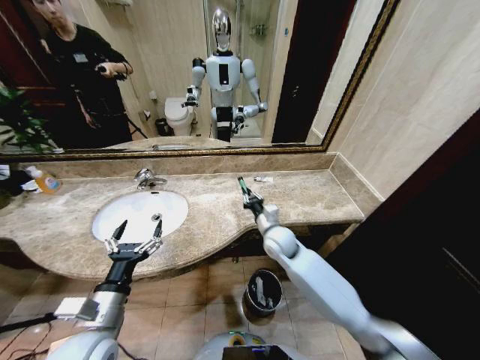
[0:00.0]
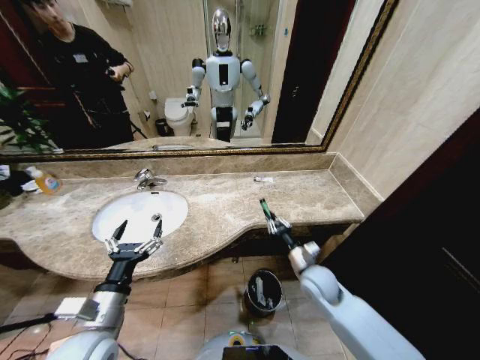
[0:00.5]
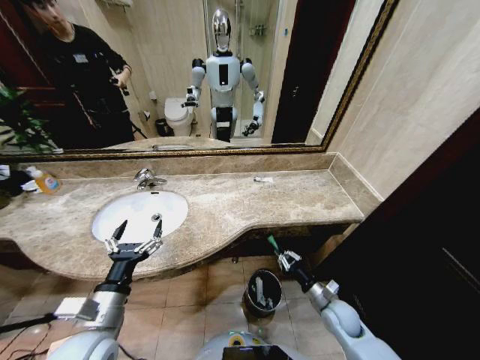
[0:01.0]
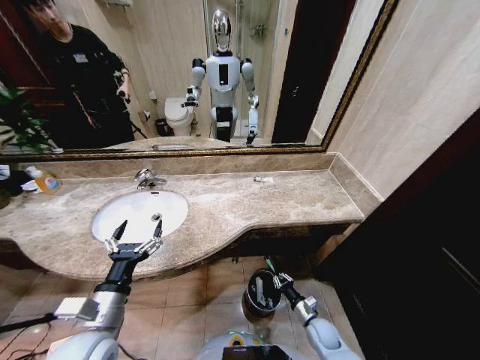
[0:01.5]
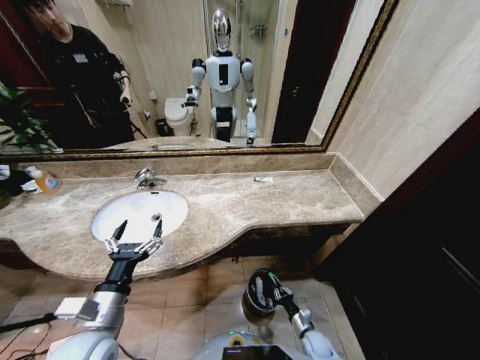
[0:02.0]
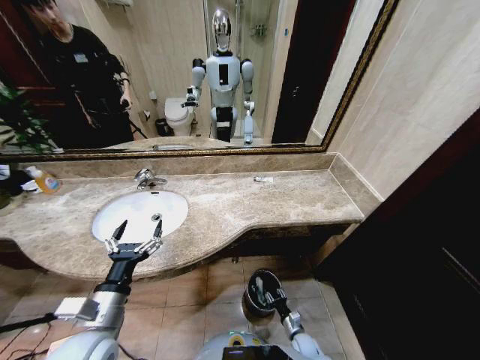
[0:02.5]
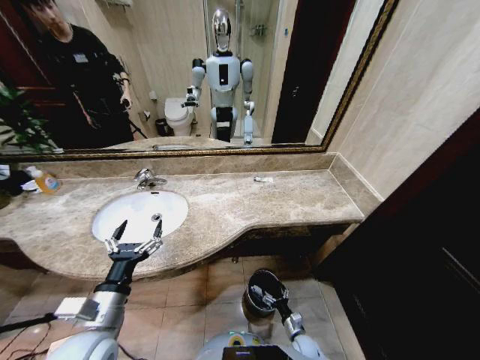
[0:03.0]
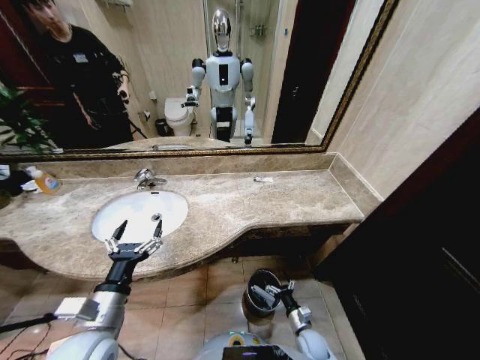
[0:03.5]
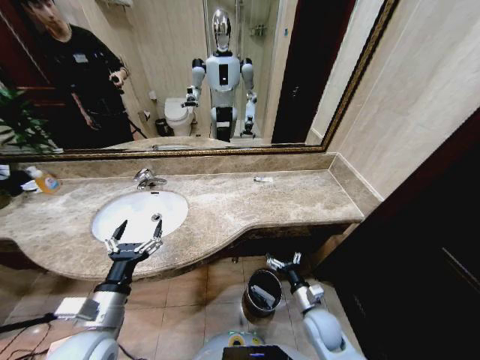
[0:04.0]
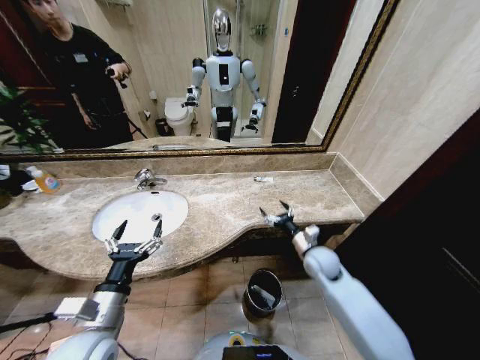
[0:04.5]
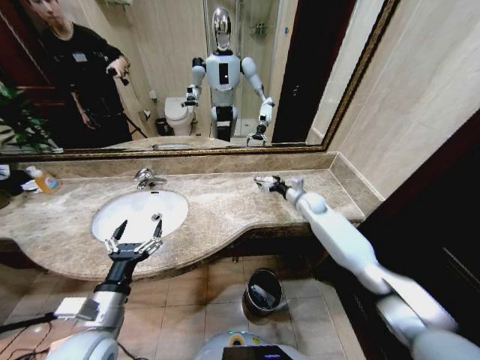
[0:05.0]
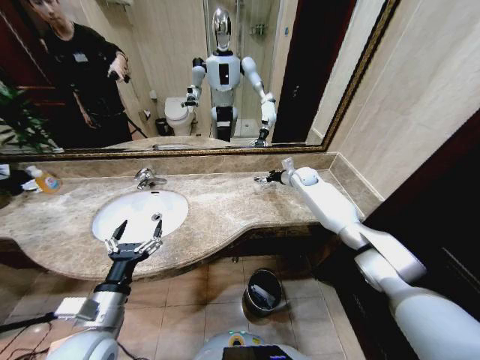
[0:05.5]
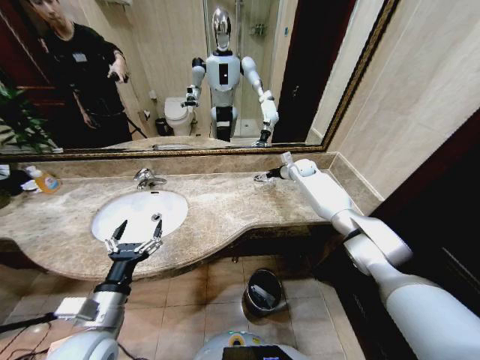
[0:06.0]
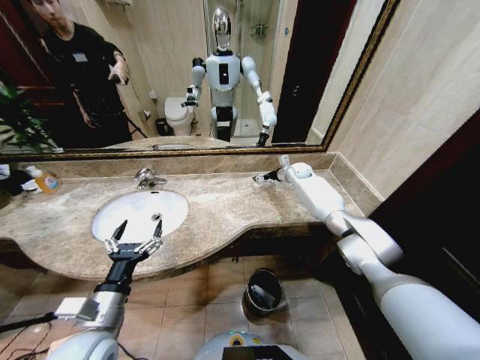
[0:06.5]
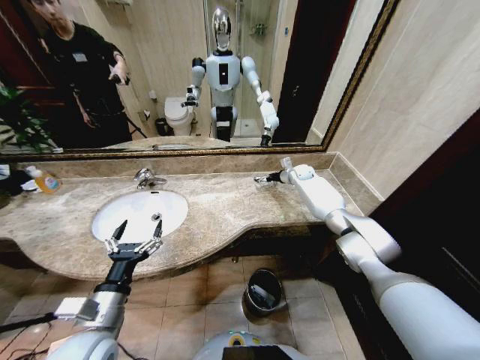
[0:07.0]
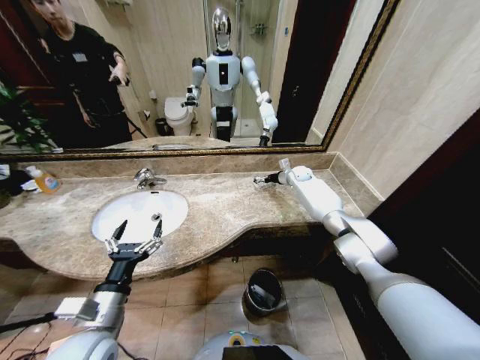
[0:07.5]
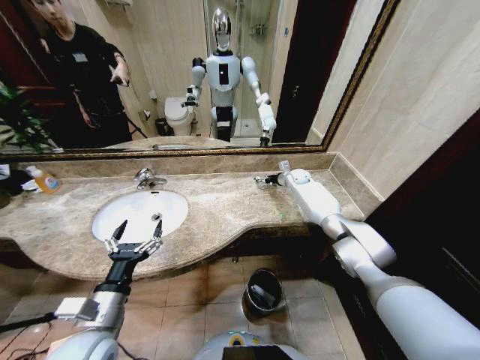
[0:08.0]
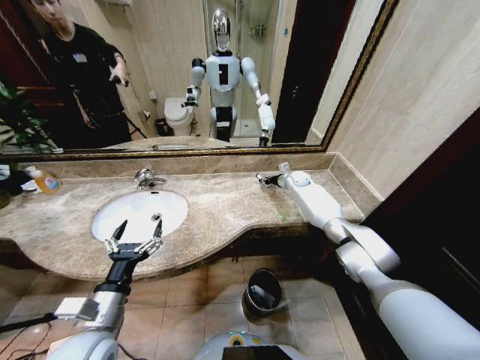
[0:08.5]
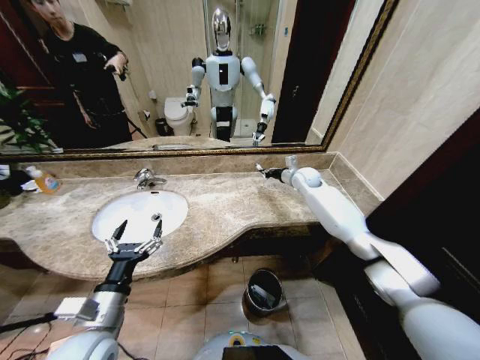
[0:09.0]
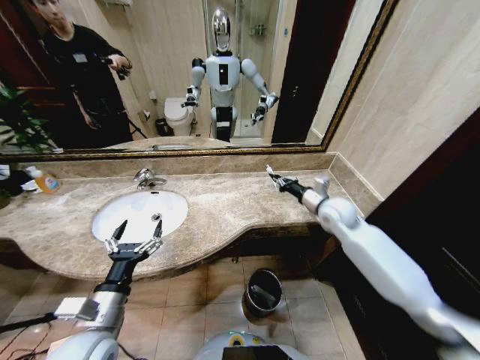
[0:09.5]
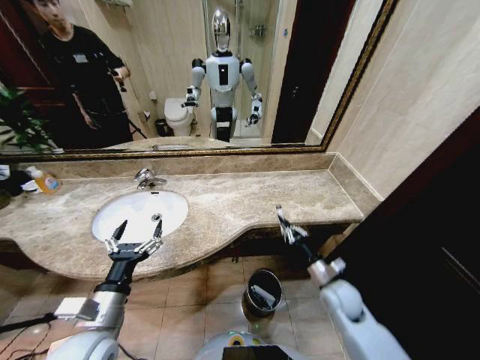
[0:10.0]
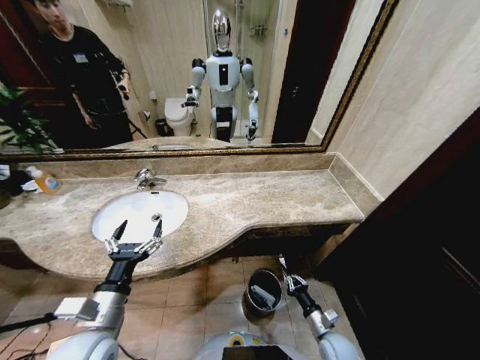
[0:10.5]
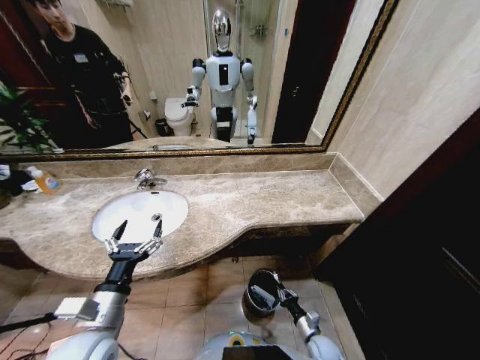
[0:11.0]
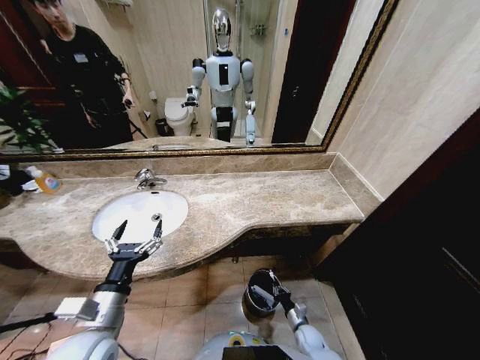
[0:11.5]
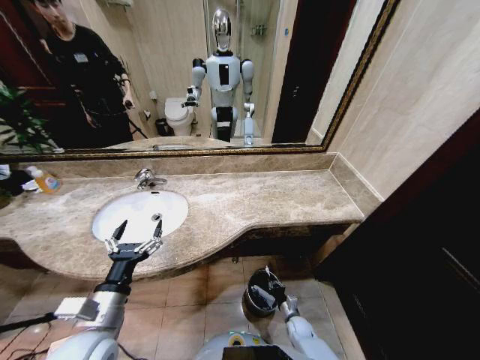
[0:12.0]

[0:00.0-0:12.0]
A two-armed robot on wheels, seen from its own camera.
Task of the whole recording: Pick up the trash from the sink and place it in the trash bin.
0:00.0 to 0:02.0: The right gripper travels downward, backward and to the right by approximately 40 cm.
0:02.0 to 0:04.0: The right gripper travels upward by approximately 20 cm, and opens up.
0:04.0 to 0:06.0: The right gripper heads forward and upward, covering roughly 50 cm.
0:06.0 to 0:08.0: The right gripper ends up approximately 5 cm from where it was.
0:08.0 to 0:10.0: The right gripper moves backward, approximately 40 cm, and closes.
0:10.0 to 0:12.0: The right gripper goes about 25 cm downward.

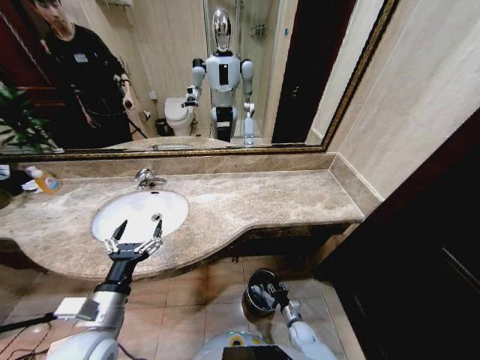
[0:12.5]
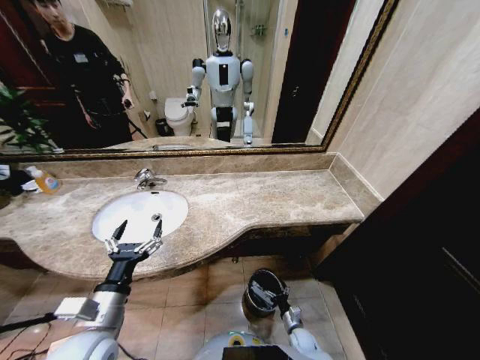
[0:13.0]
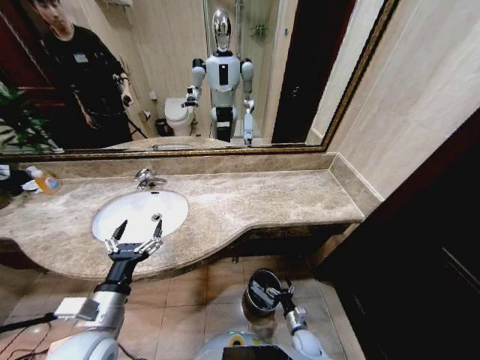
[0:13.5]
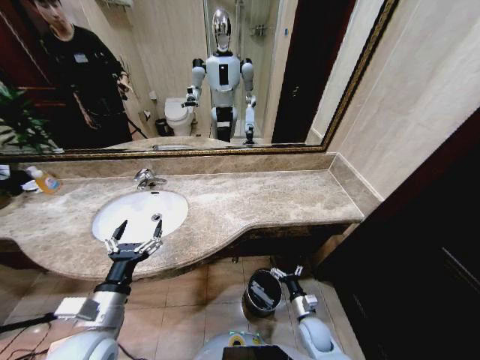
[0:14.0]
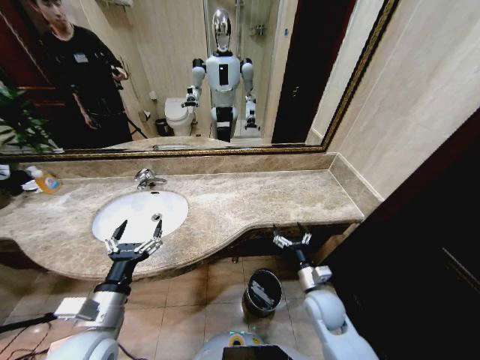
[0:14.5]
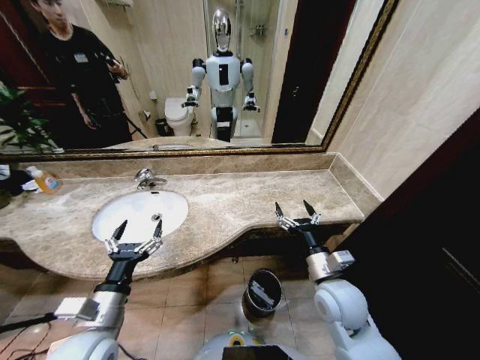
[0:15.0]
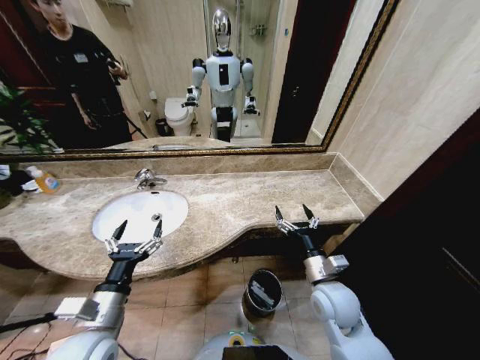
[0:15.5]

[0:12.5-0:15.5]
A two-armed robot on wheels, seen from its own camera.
Task of the whole recording: Pick up the trash from the sink and place it in the trash bin.
0:12.5 to 0:14.0: The right gripper is displaced upward by some 15 cm, and opens.
0:14.0 to 0:15.5: The right gripper goes about 25 cm upward.

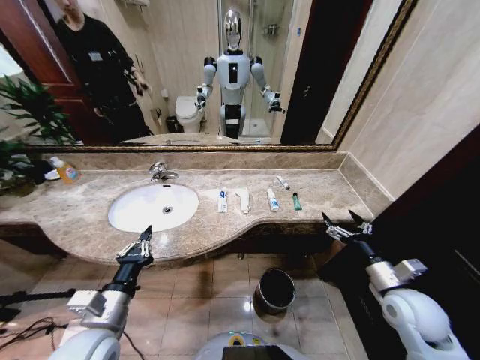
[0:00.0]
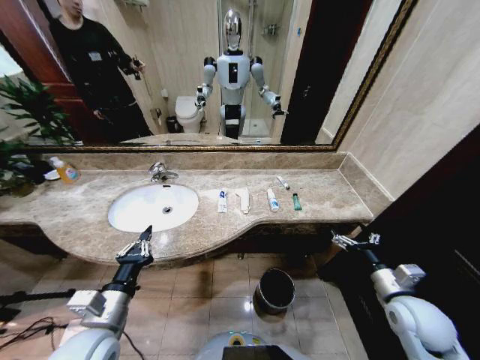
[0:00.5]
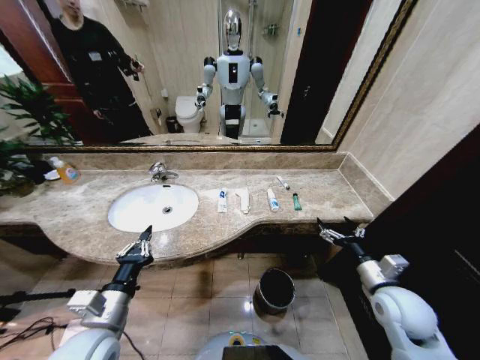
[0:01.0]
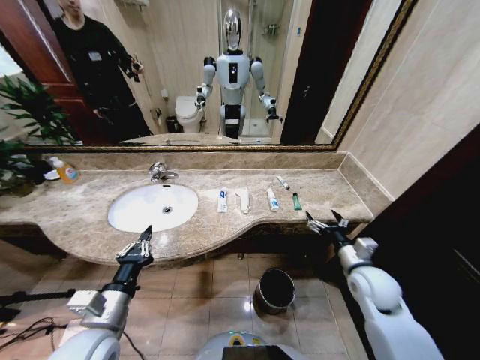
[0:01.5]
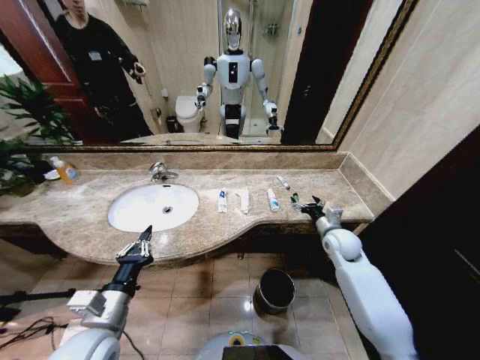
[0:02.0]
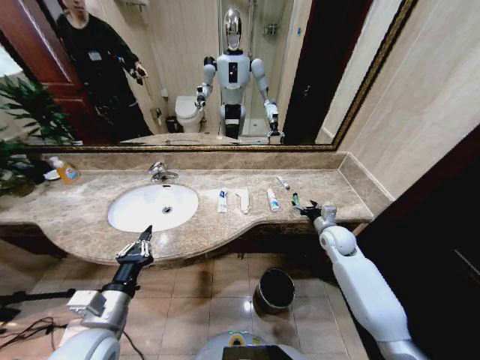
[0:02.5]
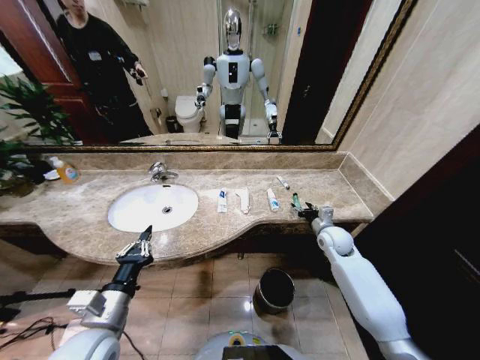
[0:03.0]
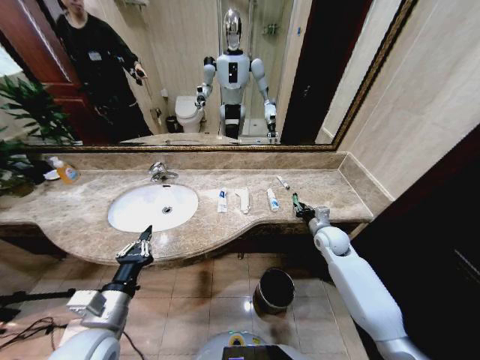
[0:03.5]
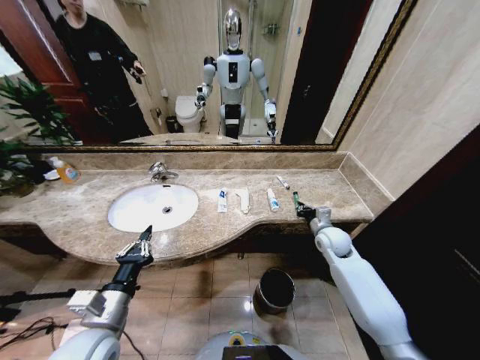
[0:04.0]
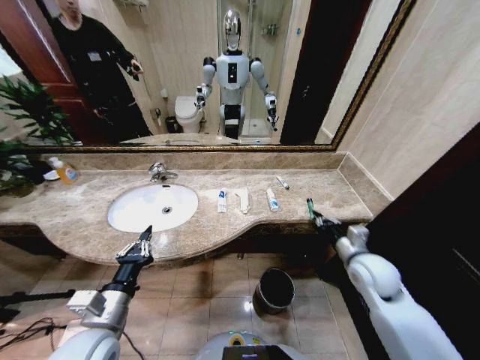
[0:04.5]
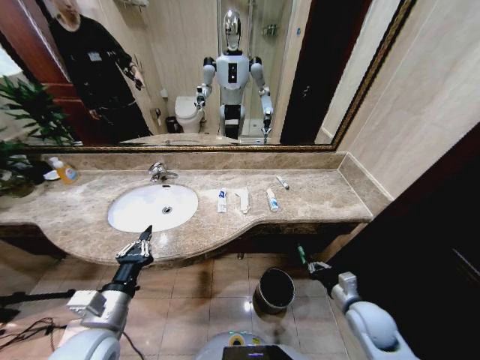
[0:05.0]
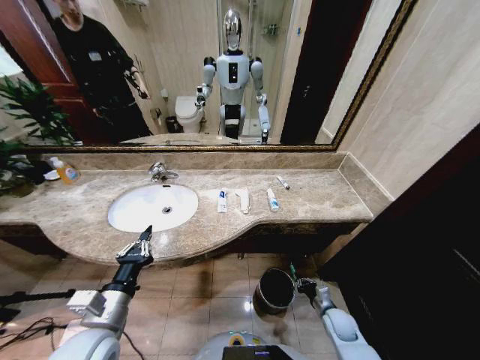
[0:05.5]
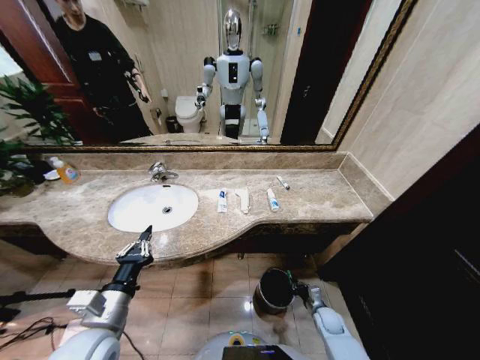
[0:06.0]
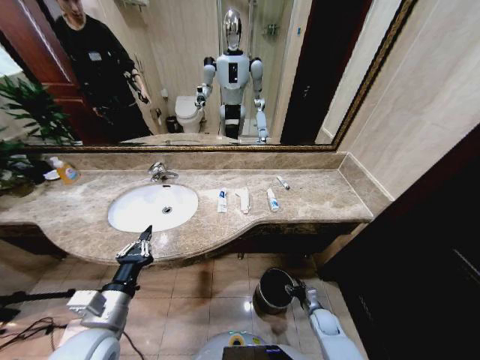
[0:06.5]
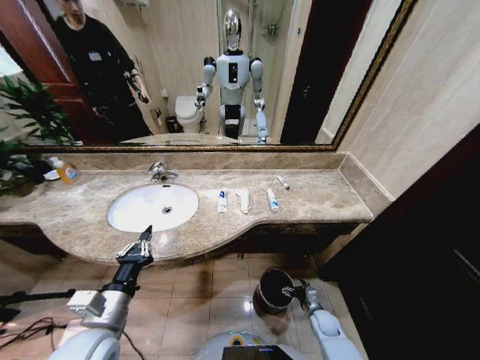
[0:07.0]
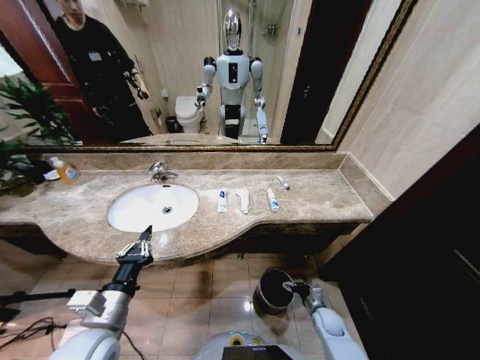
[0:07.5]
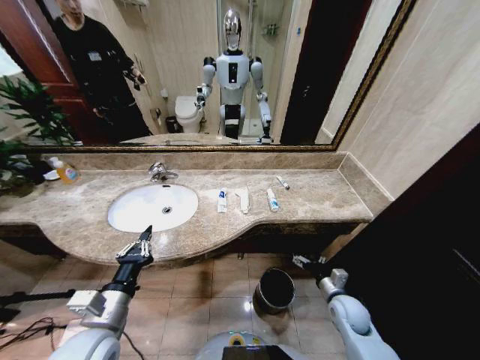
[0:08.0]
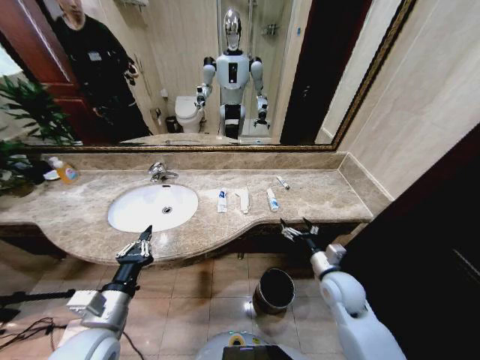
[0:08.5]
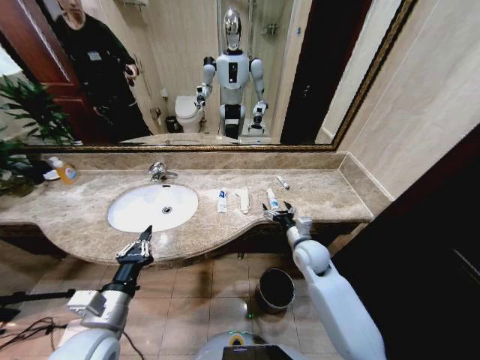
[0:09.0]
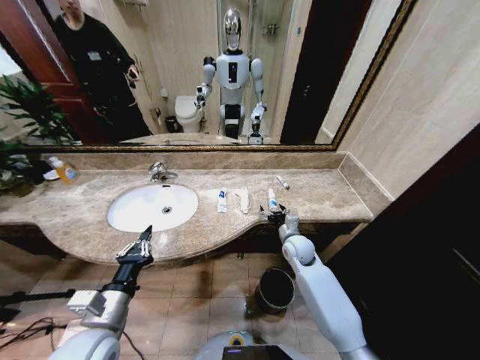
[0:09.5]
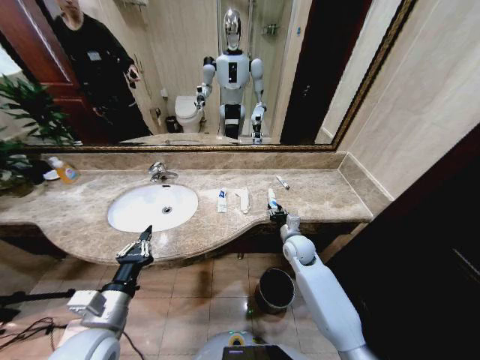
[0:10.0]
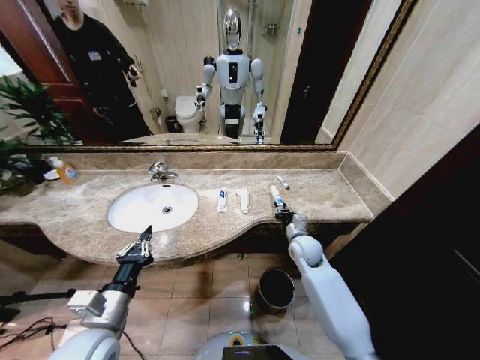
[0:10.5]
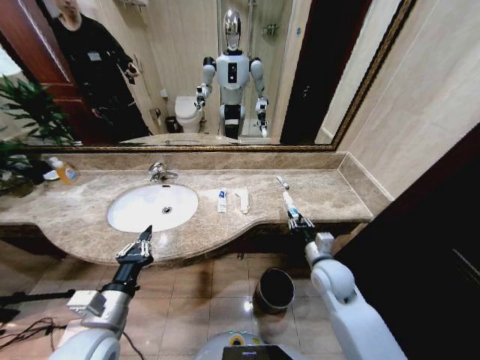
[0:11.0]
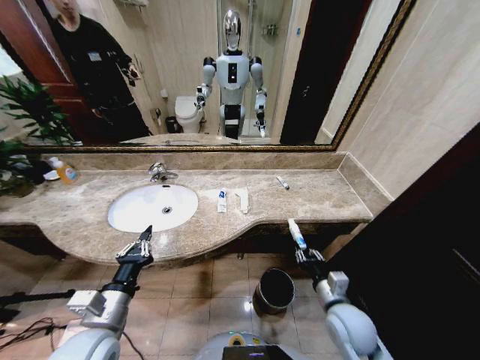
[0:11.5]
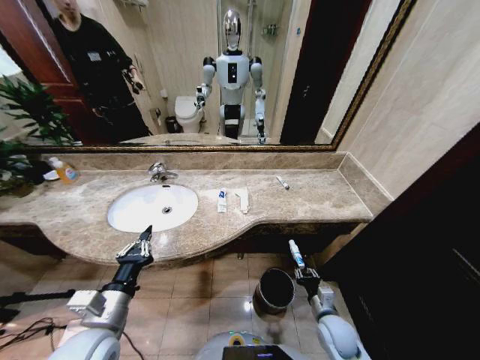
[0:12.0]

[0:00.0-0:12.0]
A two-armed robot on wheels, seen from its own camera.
Task of the whole recording: Pick up the trash from the sink and place it in the trash bin.
0:02.0 to 0:04.0: The right gripper closes up.
0:04.0 to 0:06.0: The right gripper heads downward and backward, covering roughly 30 cm.
0:06.0 to 0:08.0: The right gripper shifts about 15 cm upward, and opens up.
0:08.0 to 0:10.0: The right gripper heads forward, to the left and upward, covering approximately 20 cm, and closes its fingers.
0:10.0 to 0:12.0: The right gripper is displaced backward and downward by about 25 cm.
